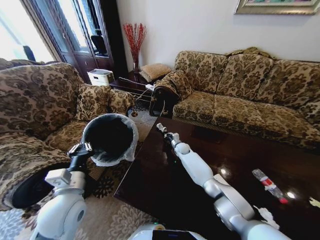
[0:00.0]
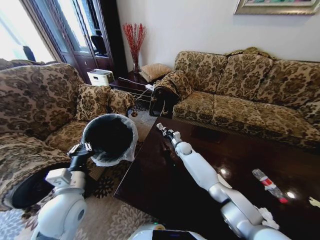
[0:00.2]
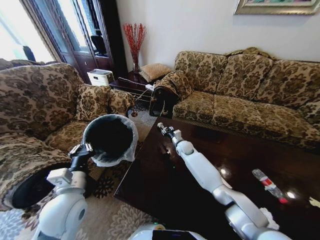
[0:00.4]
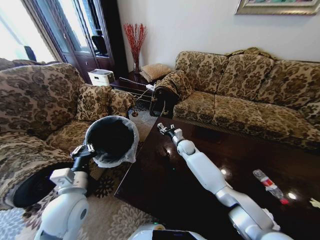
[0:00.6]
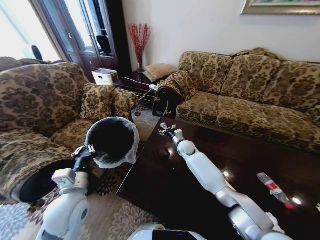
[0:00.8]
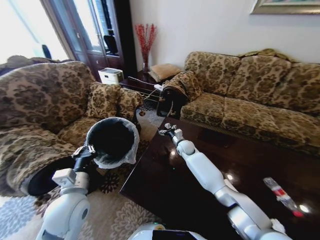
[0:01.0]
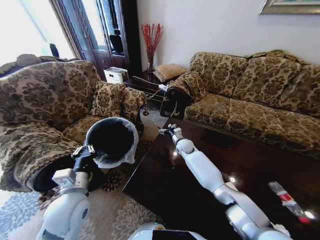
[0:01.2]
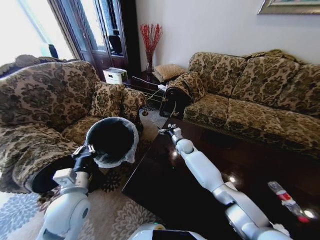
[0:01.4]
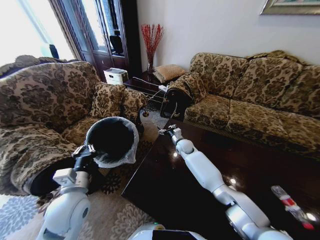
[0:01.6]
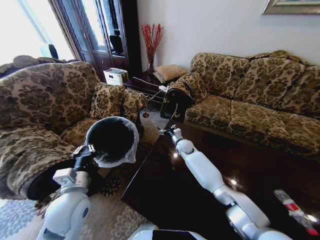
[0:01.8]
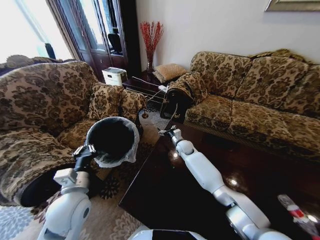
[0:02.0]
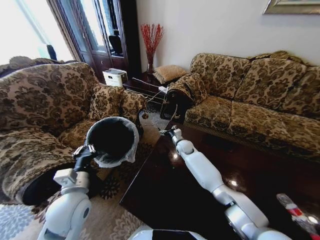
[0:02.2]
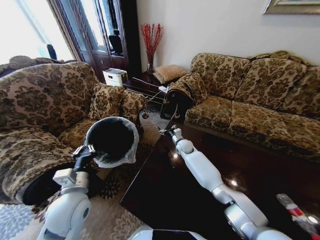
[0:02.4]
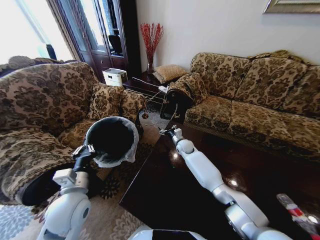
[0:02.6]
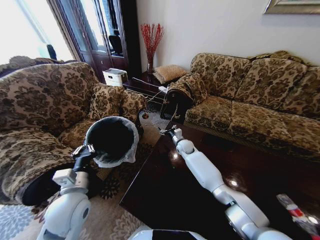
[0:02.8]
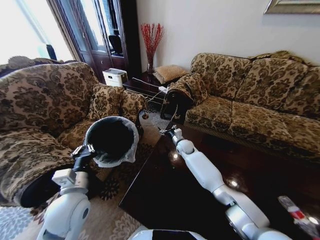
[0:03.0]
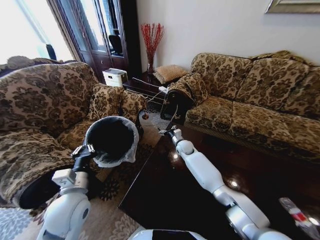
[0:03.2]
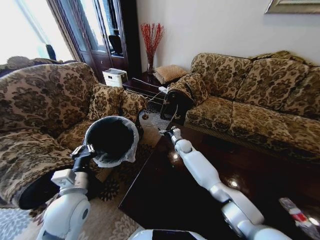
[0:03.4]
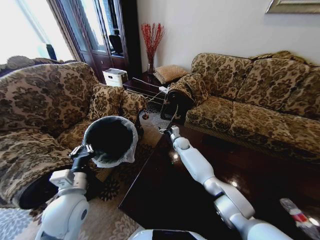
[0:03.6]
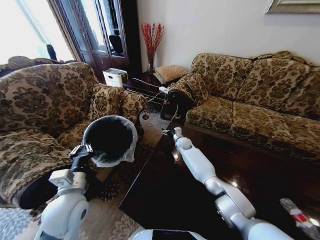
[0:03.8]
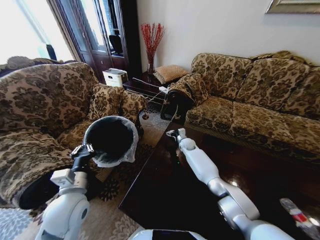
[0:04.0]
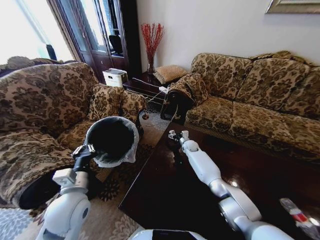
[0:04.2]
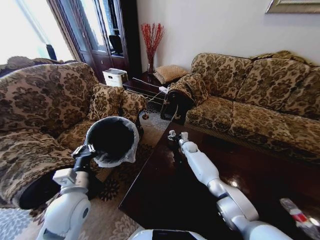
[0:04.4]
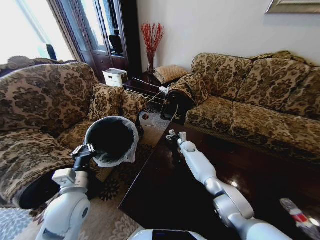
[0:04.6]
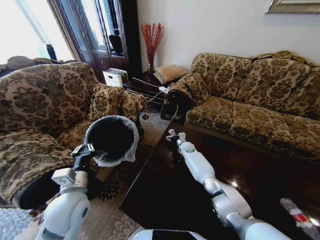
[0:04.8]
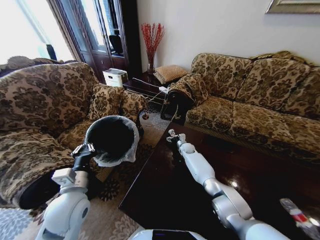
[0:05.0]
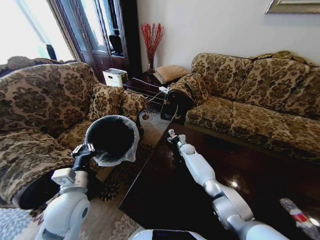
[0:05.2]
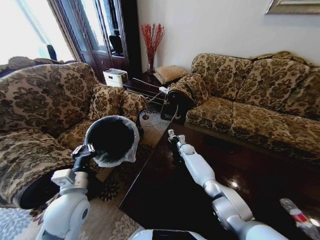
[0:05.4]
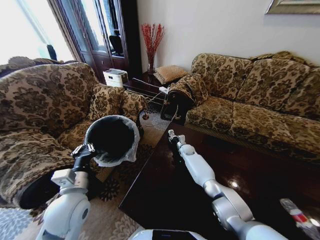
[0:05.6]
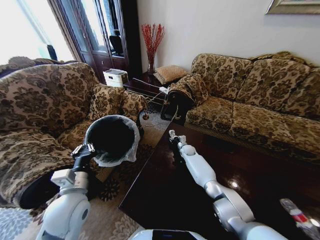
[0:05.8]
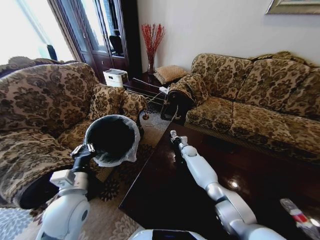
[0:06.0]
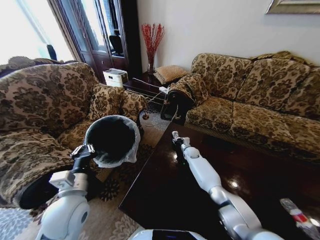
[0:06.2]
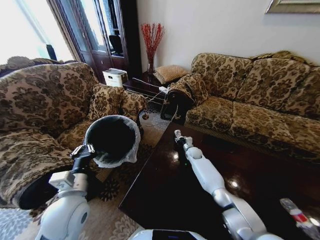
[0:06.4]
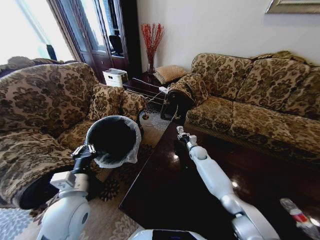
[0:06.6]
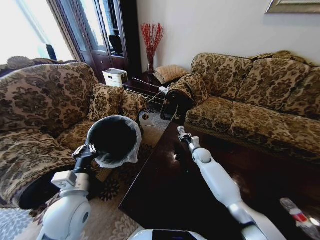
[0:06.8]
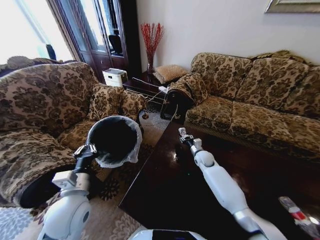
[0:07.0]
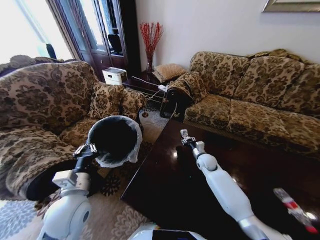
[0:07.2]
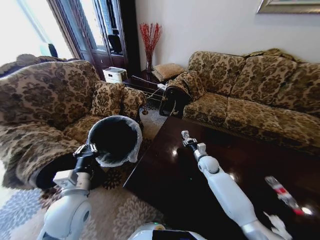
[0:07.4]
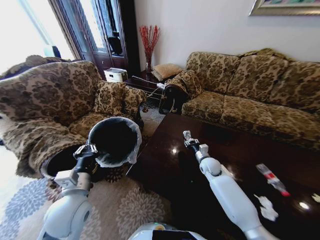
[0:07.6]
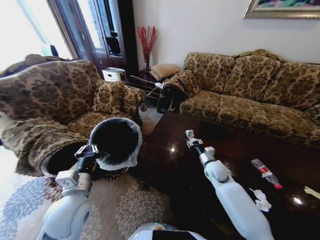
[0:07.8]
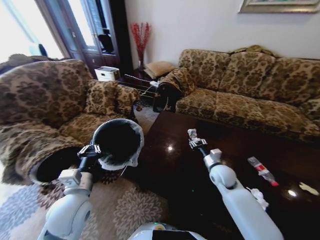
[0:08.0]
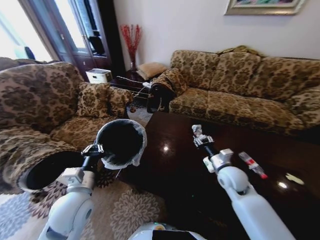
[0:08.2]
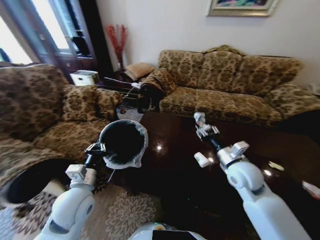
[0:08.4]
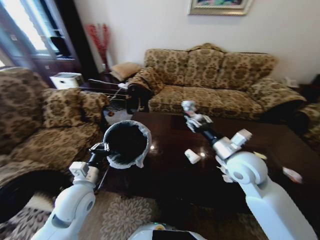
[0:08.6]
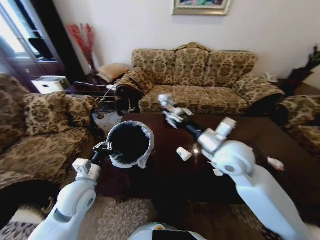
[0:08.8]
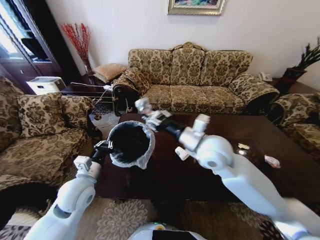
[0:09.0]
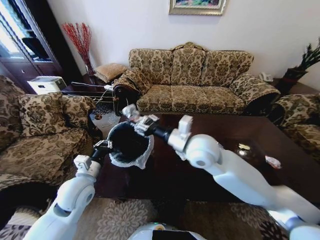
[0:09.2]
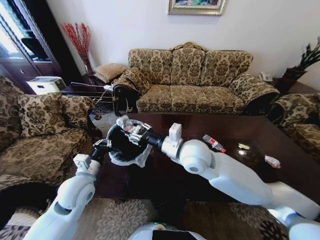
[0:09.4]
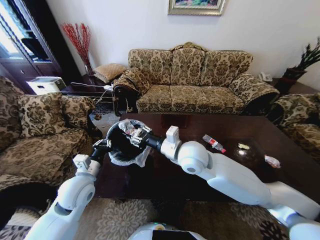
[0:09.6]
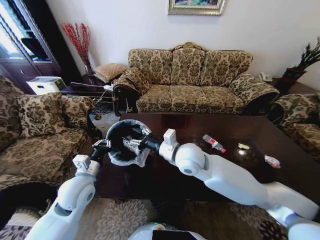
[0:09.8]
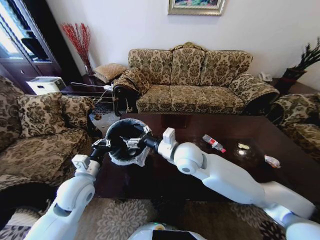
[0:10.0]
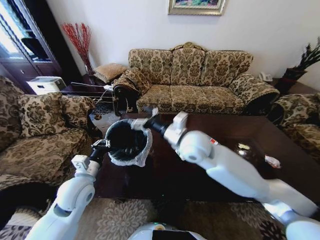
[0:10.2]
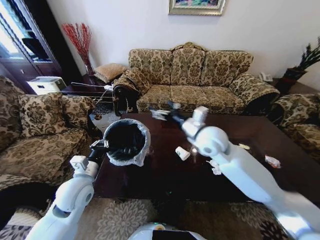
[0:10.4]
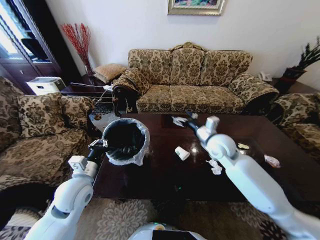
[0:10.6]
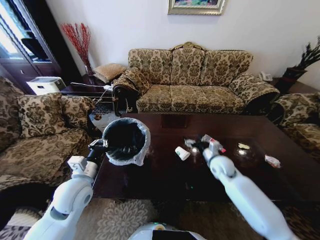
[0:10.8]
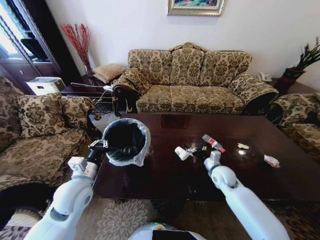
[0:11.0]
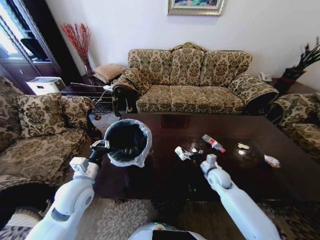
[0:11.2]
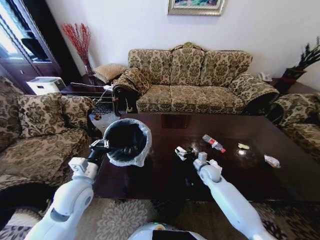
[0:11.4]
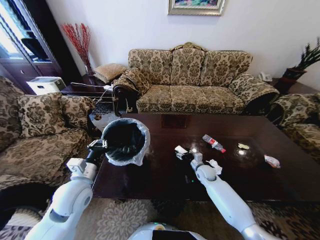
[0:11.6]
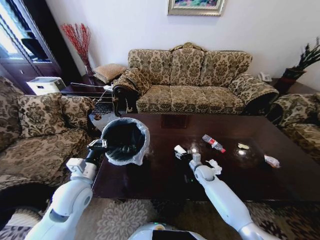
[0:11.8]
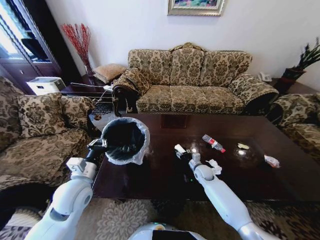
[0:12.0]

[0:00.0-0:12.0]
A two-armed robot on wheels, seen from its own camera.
Task of the whole recording: Move to the front of the table and place the trash on the table into the trash bin.
0:00.0 to 0:01.6: The right gripper travels upward by approximately 5 cm, and opens up.
0:03.0 to 0:04.4: The right gripper shifts about 5 cm downward.
0:04.4 to 0:06.0: The right gripper closes up.
0:06.0 to 0:07.6: The right gripper moves backward, to the right and upward, about 15 cm.
0:07.6 to 0:09.0: The left gripper travels forward by approximately 5 cm, while the right gripper is displaced upward and to the left by about 30 cm.
0:09.0 to 0:10.4: The right gripper opens.
0:10.4 to 0:12.0: The right gripper goes about 35 cm downward, and closes.

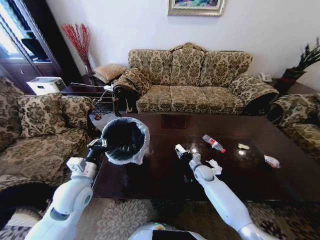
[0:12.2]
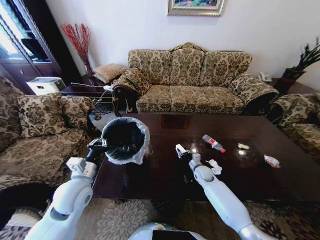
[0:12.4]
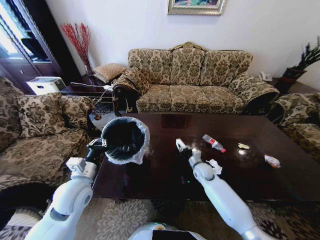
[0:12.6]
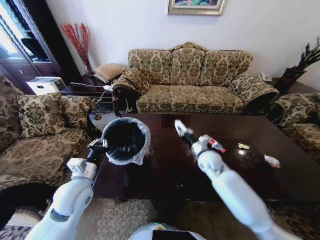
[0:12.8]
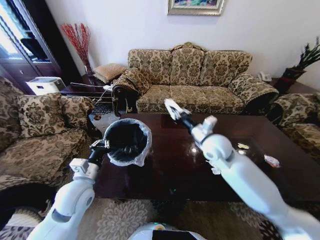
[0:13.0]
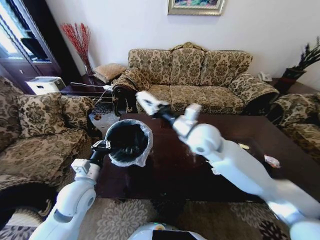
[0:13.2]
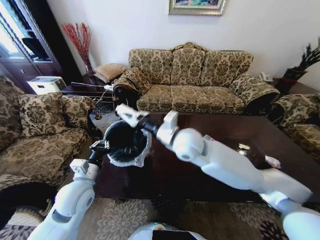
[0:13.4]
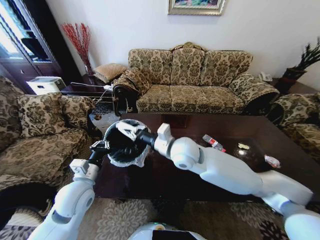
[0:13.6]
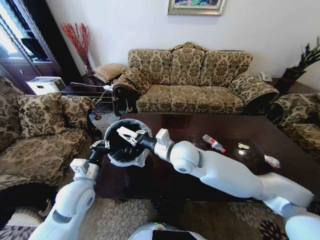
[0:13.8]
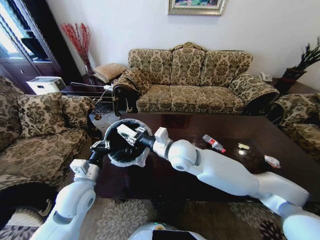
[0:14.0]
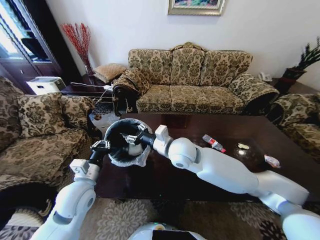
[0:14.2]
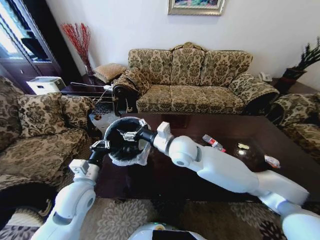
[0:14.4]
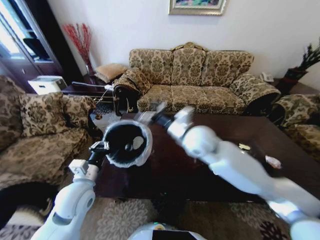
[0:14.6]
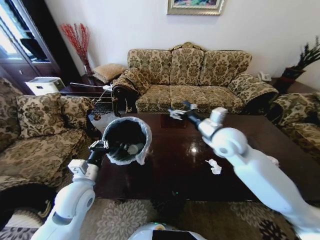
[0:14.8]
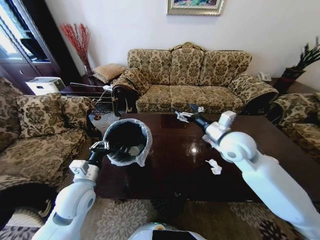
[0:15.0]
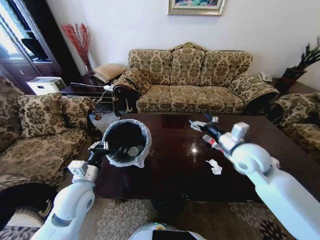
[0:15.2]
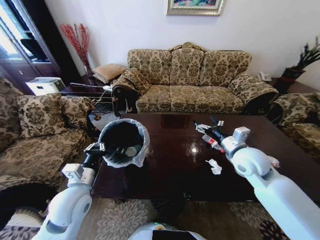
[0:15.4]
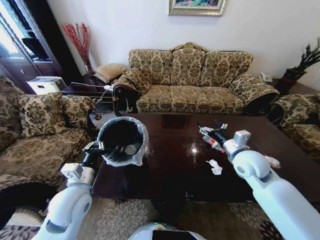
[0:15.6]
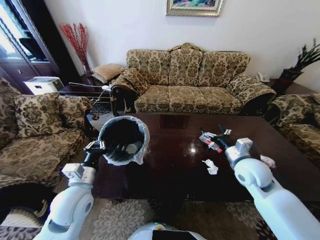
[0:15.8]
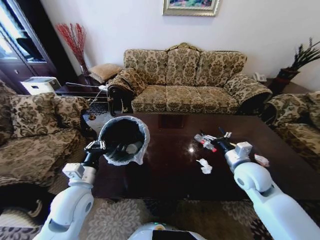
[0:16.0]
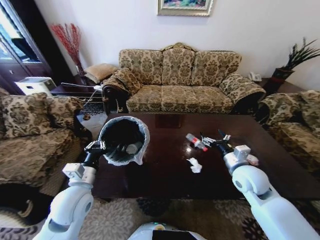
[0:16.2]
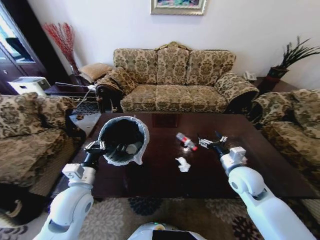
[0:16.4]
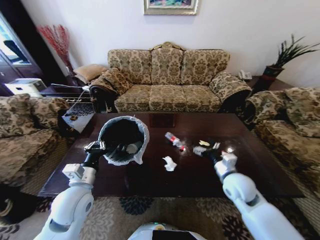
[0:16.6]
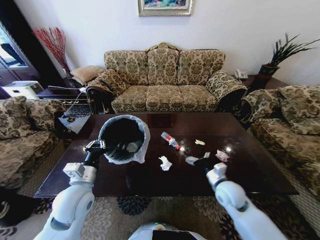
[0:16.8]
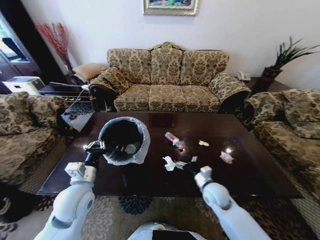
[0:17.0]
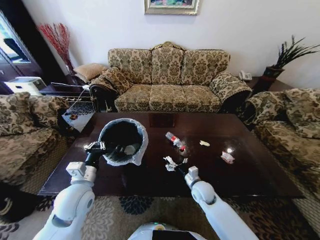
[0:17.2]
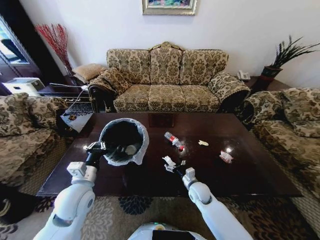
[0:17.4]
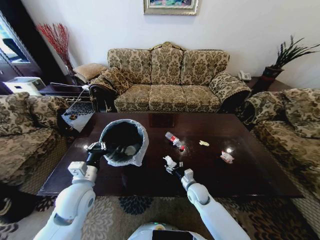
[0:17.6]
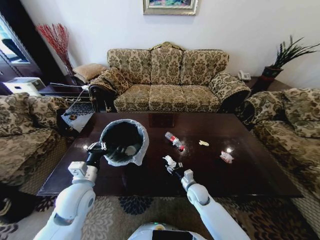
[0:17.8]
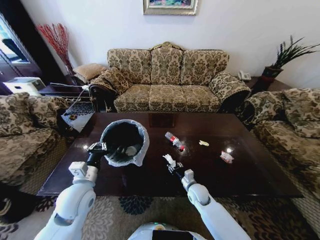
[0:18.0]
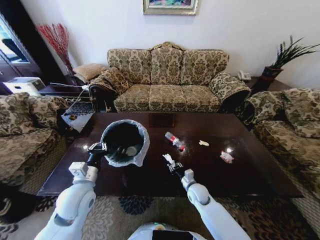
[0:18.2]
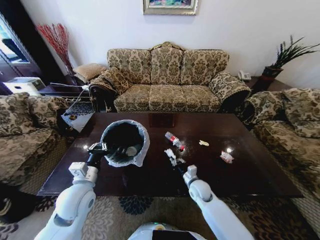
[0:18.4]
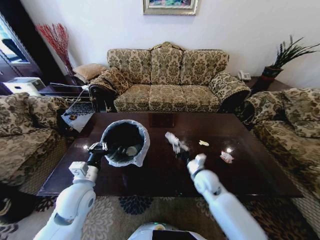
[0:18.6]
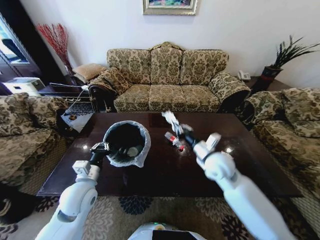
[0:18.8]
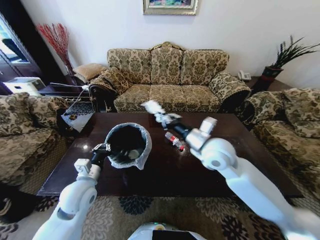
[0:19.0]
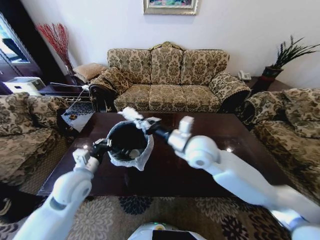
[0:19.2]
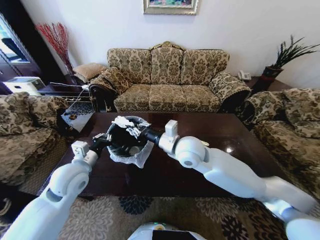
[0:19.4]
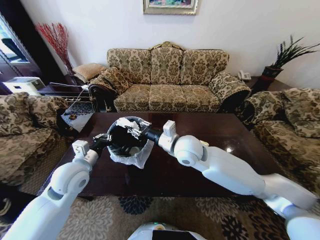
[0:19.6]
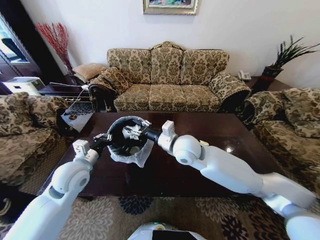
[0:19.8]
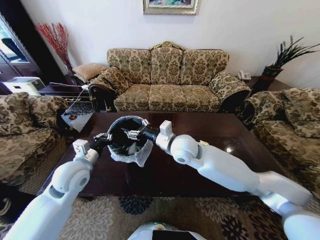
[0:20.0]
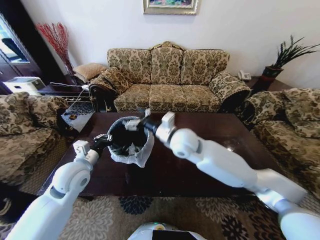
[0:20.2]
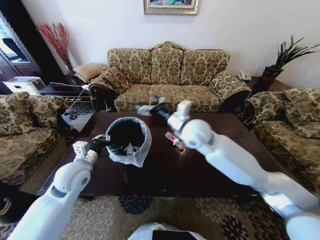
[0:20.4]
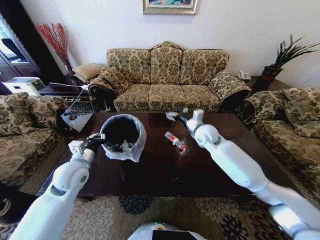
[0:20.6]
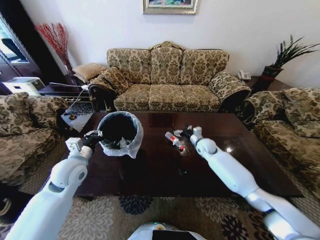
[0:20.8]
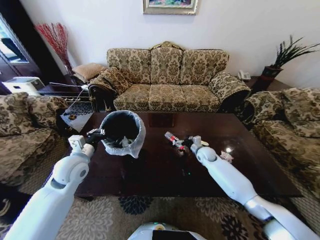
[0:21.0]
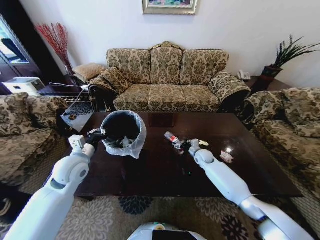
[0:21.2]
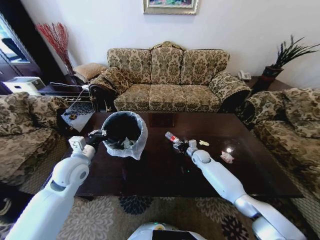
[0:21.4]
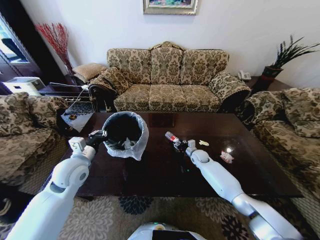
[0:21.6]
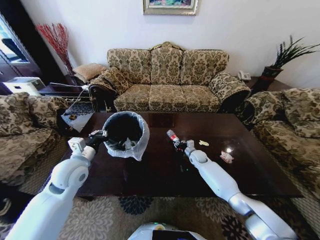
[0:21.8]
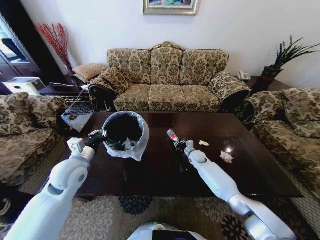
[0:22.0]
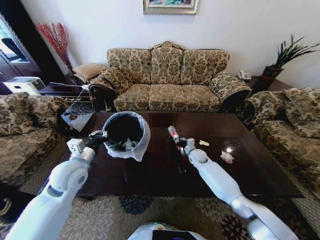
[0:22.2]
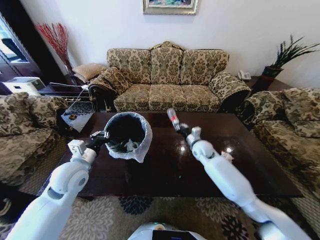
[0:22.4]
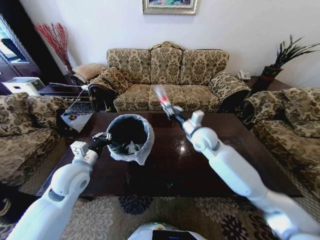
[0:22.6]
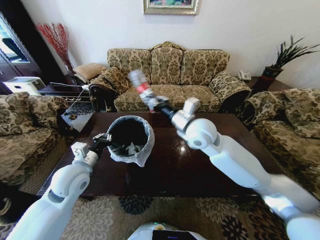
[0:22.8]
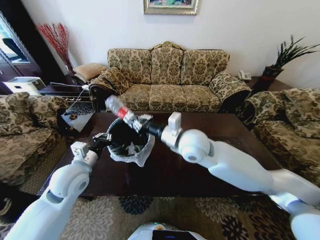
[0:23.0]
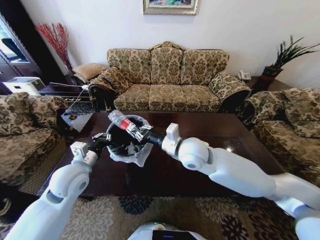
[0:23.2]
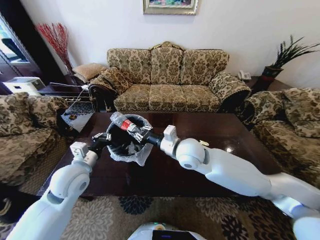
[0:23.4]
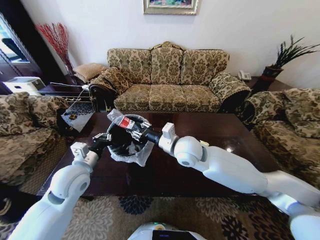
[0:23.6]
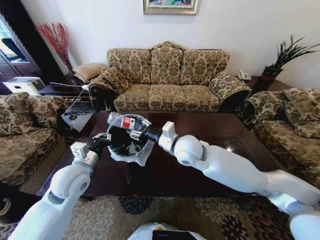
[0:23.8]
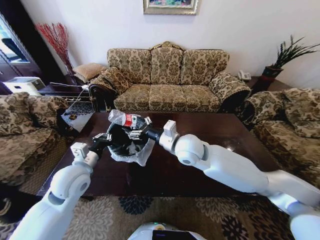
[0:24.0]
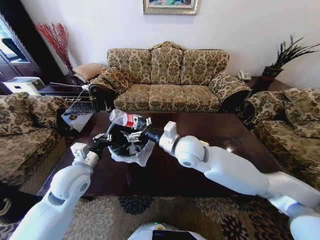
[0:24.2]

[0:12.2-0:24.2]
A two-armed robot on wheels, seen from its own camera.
Task of the whole recording: Move to the front of the table and place the trash on the table into the trash bin.
0:12.2 to 0:13.8: The right gripper travels upward and to the left by about 35 cm.
0:13.8 to 0:15.2: The right gripper heads to the right, covering roughly 20 cm, and opens.
0:15.2 to 0:16.6: The right gripper travels downward by roughly 10 cm.
0:16.6 to 0:18.2: The right gripper heads downward and to the left, covering about 20 cm, and closes its fingers.
0:18.2 to 0:19.8: The right gripper heads upward, covering approximately 30 cm, and closes, then opens again. Meanwhile the left gripper shifts roughly 5 cm forward and upward.
0:19.8 to 0:21.2: The right gripper travels downward, to the right and forward by about 35 cm, and opens up.
0:21.2 to 0:22.6: The right gripper goes some 20 cm upward, and closes.
0:22.6 to 0:24.2: The right gripper heads to the left and backward, covering roughly 15 cm, and opens.
